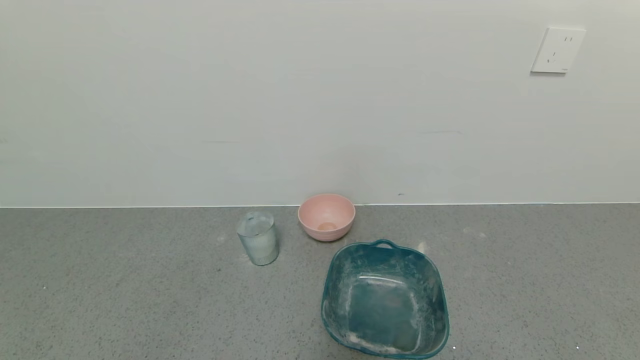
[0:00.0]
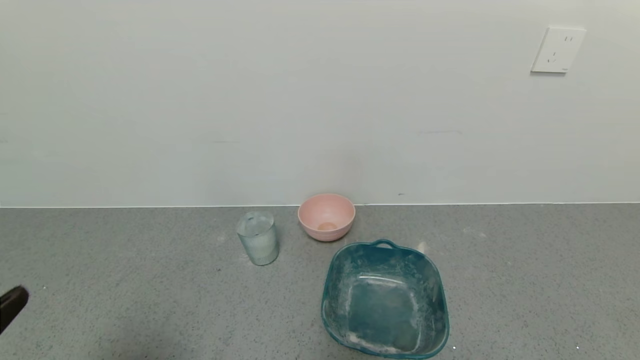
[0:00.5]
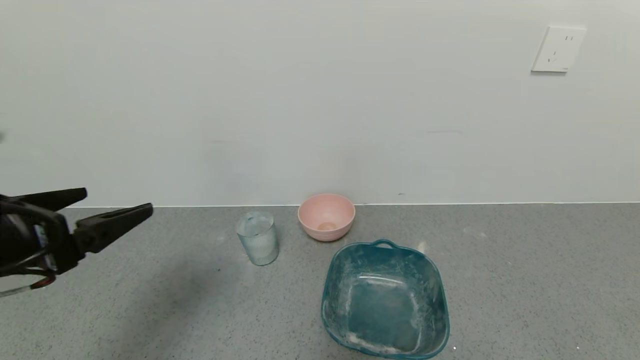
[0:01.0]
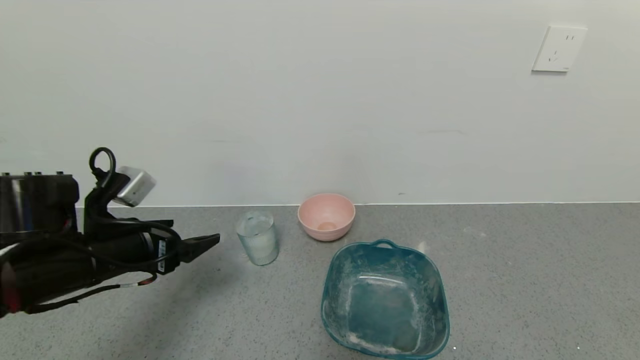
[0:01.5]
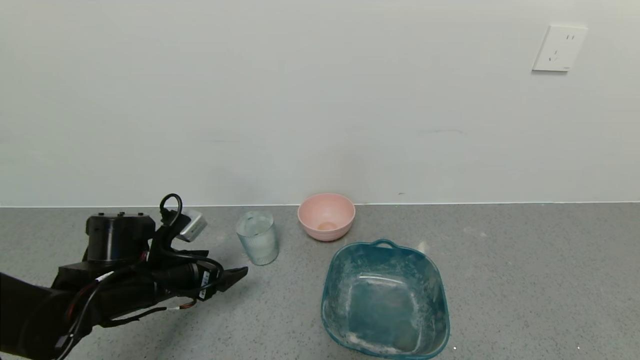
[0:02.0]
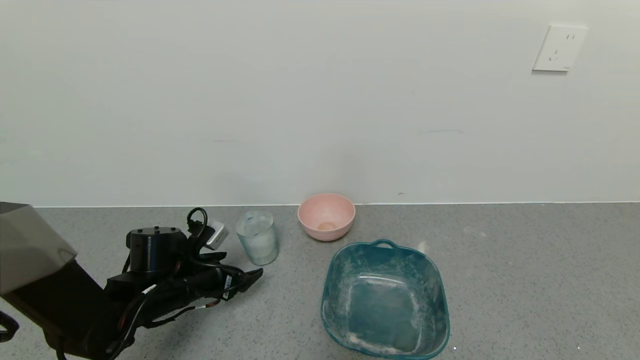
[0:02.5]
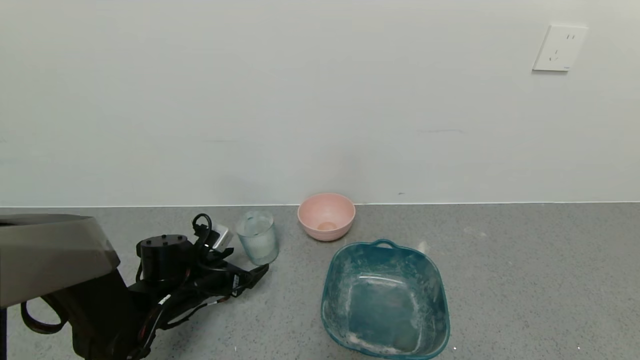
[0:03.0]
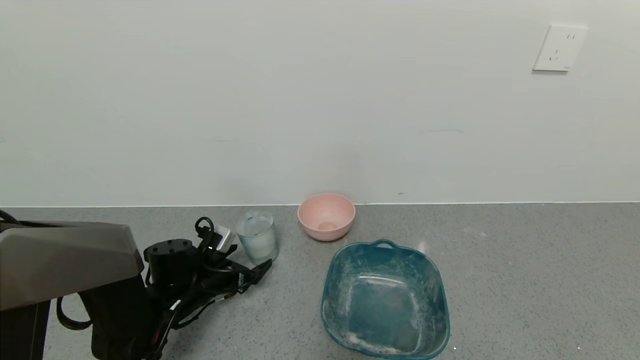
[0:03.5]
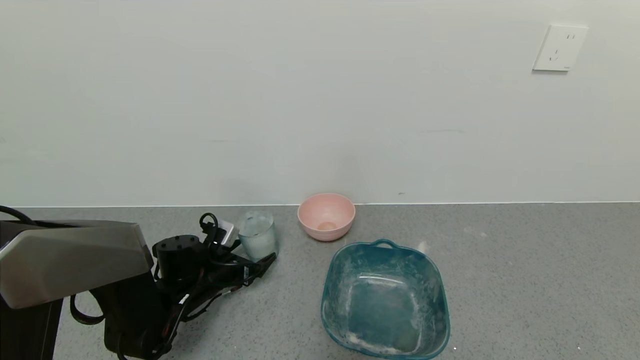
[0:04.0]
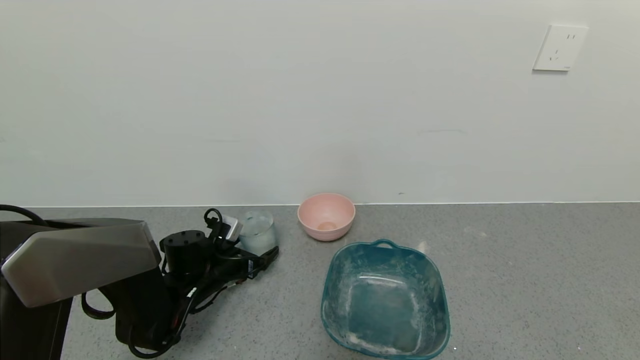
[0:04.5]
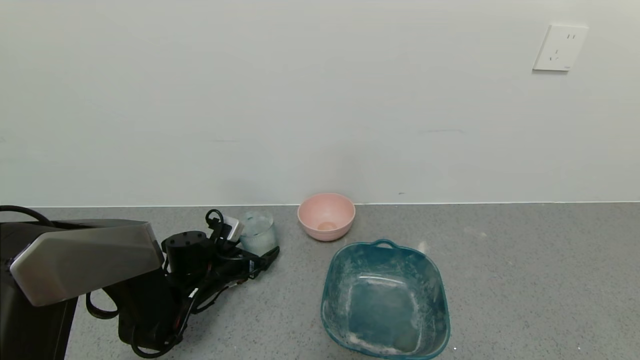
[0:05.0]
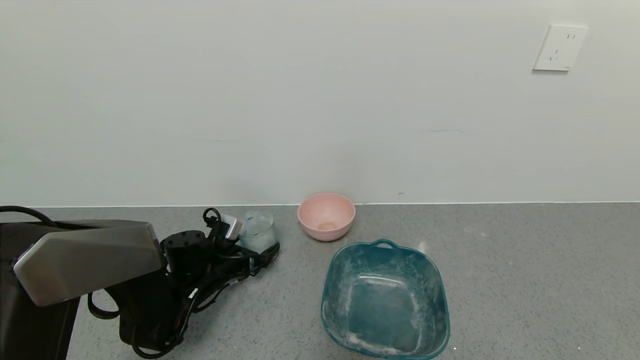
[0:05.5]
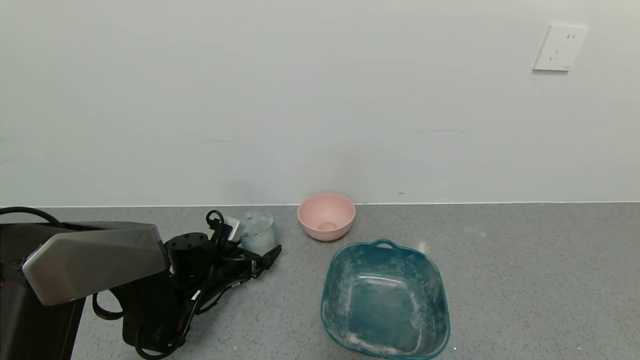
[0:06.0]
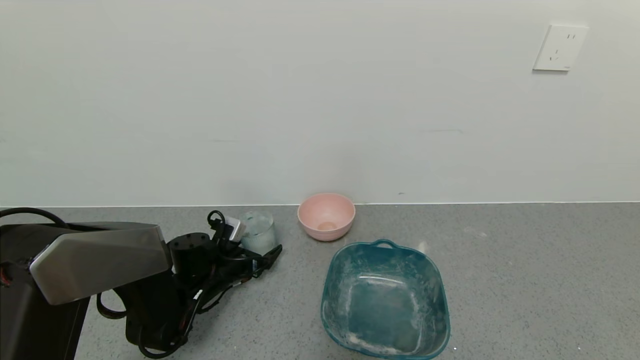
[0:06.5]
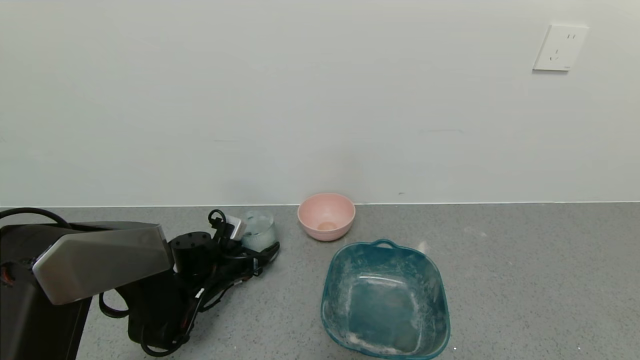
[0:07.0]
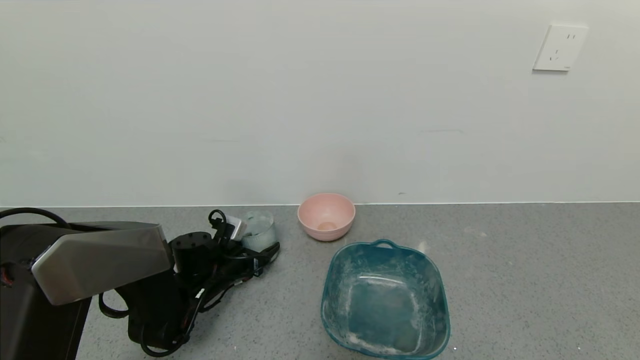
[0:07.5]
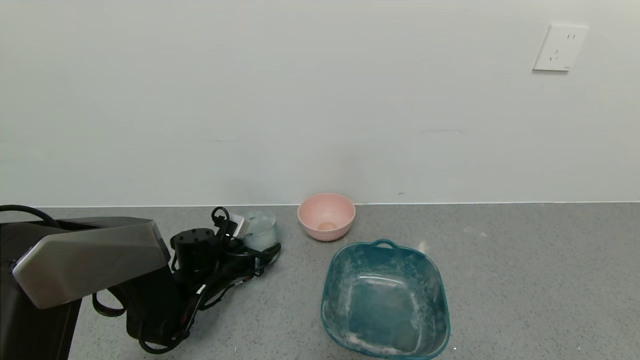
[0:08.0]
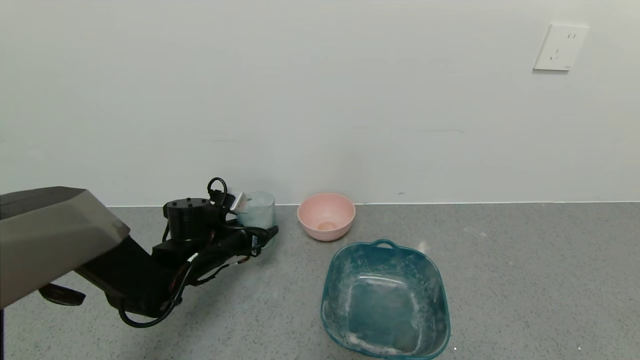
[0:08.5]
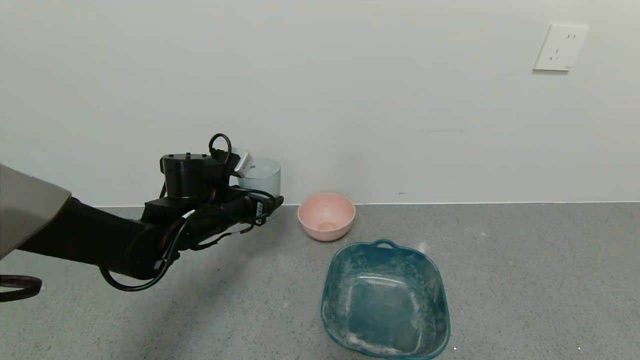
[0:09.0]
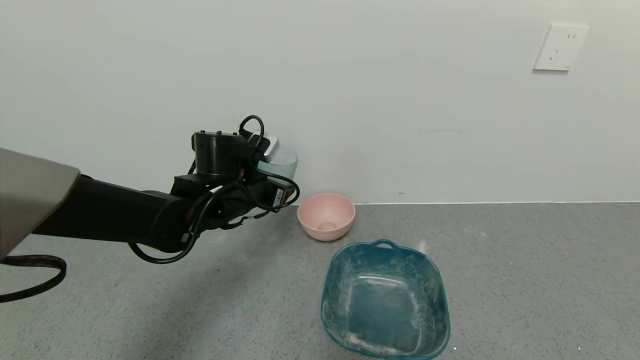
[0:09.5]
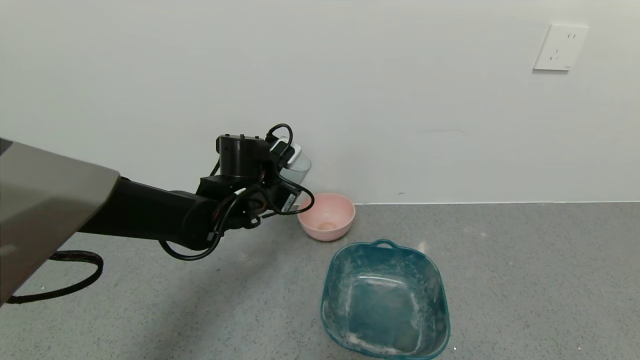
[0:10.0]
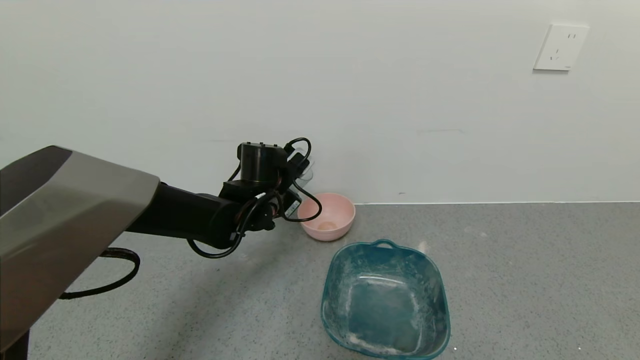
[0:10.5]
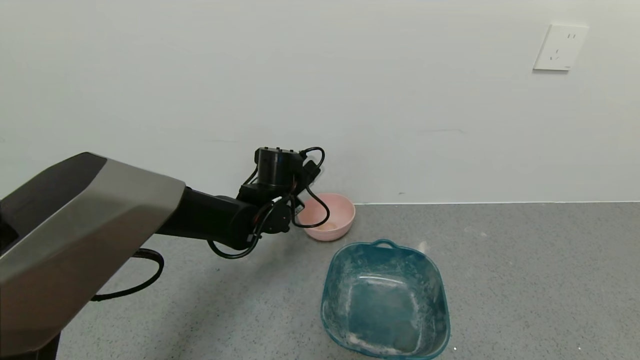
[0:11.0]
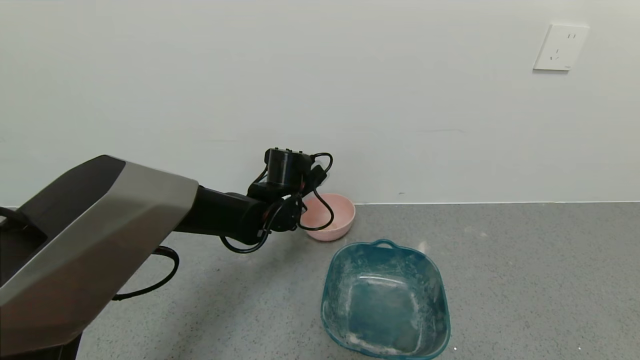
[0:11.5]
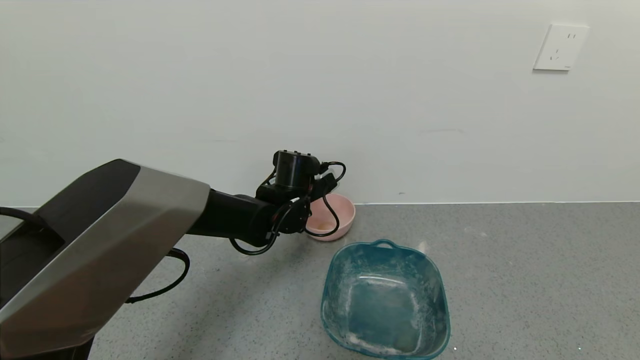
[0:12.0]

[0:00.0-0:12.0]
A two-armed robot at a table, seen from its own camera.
Task of the whole recording: use a gripper to pick up the cup and pour the powder into a bowl or tray.
Step, 0:00.0 to 0:07.0: Grasp the glass of powder with the left gripper.
0:00.0 to 0:02.0: The left gripper travels forward and downward by roughly 25 cm.
0:02.0 to 0:04.0: The left gripper is displaced downward and forward by about 10 cm.
0:04.0 to 0:06.0: The grippers move only a little.
0:06.0 to 0:08.0: The left gripper closes its fingers.
0:08.0 to 0:10.0: The left gripper moves upward and to the right, roughly 20 cm.
0:10.0 to 0:12.0: The left gripper moves to the right, roughly 5 cm.

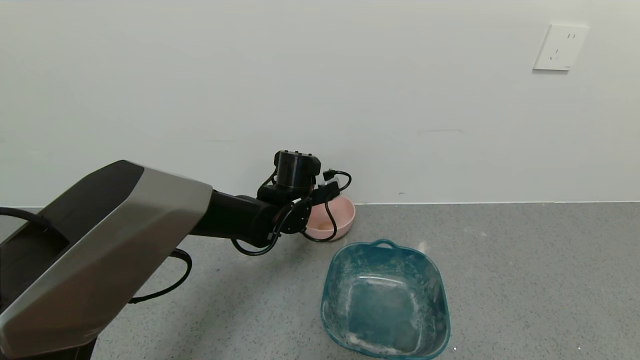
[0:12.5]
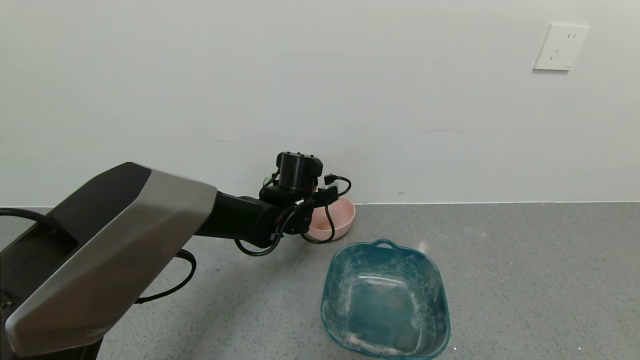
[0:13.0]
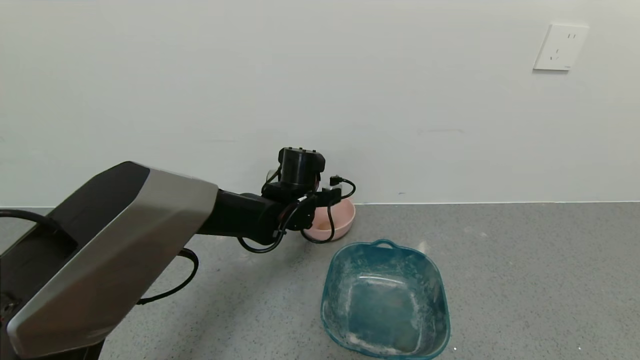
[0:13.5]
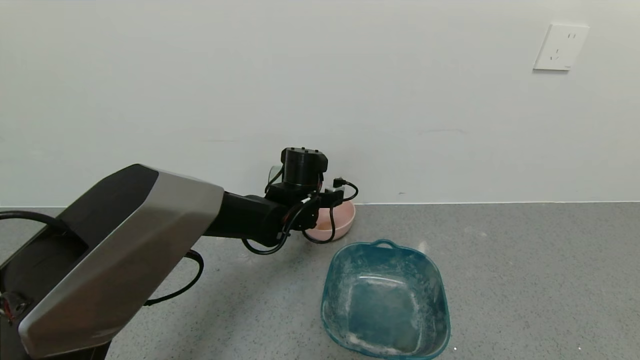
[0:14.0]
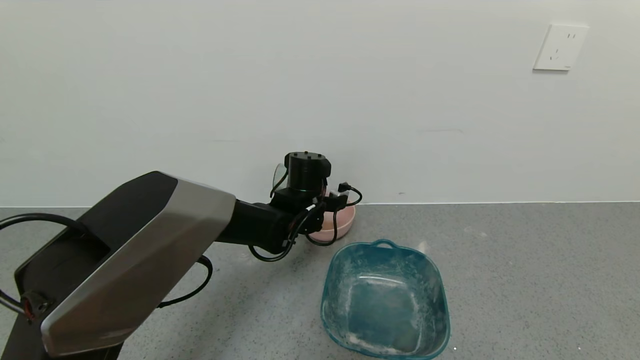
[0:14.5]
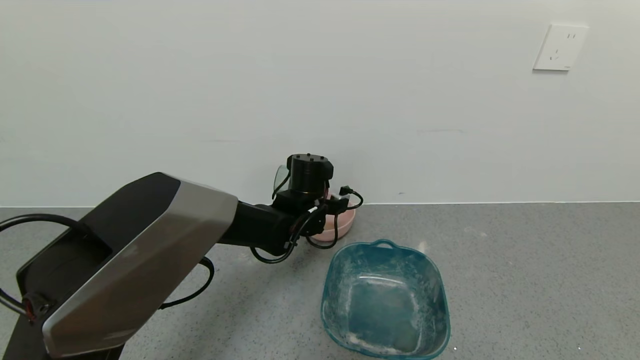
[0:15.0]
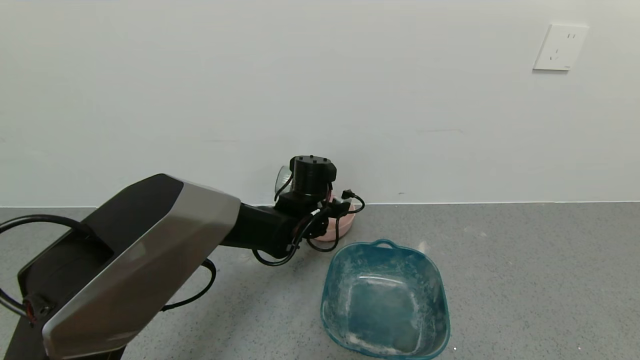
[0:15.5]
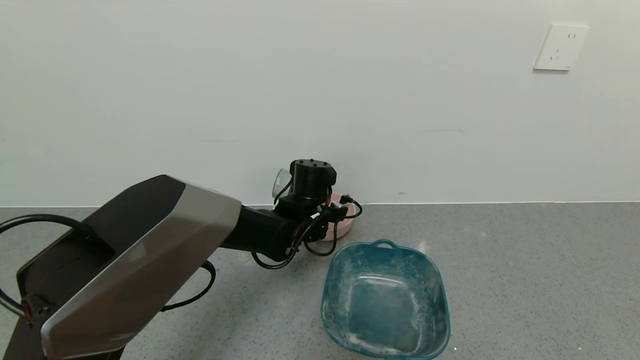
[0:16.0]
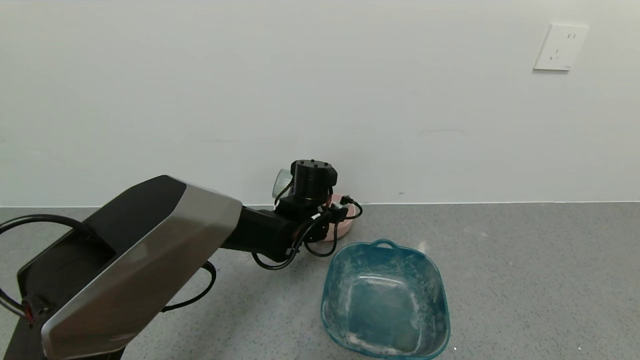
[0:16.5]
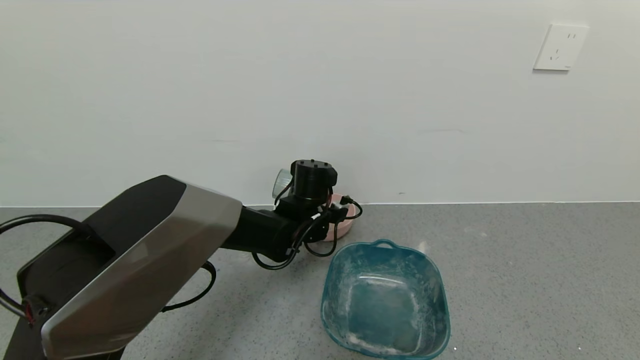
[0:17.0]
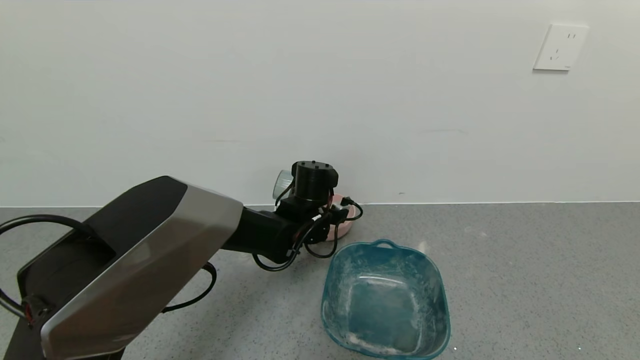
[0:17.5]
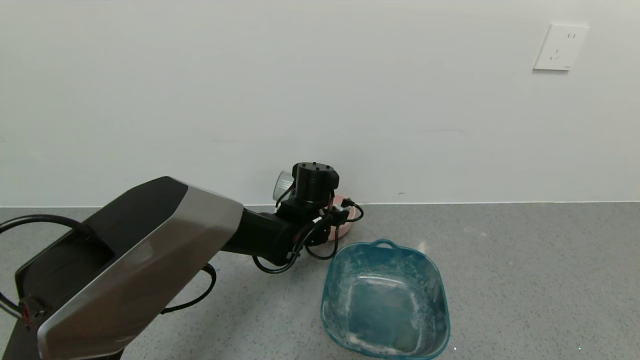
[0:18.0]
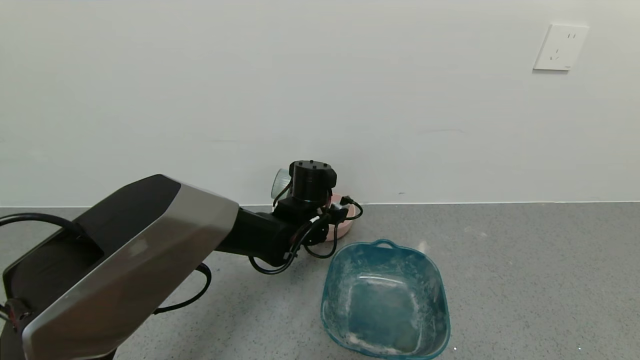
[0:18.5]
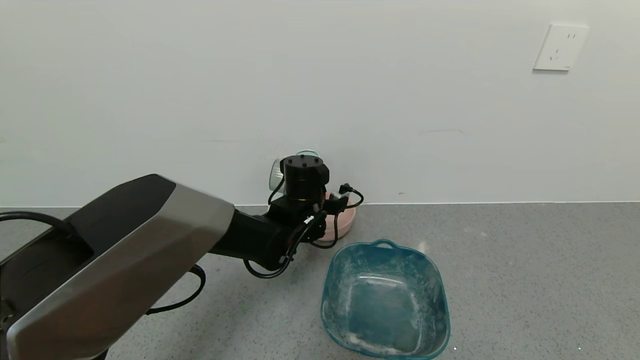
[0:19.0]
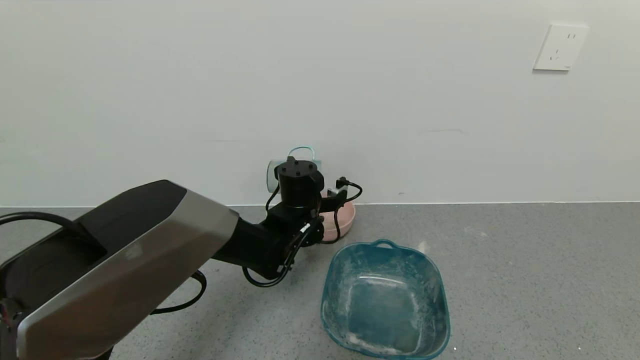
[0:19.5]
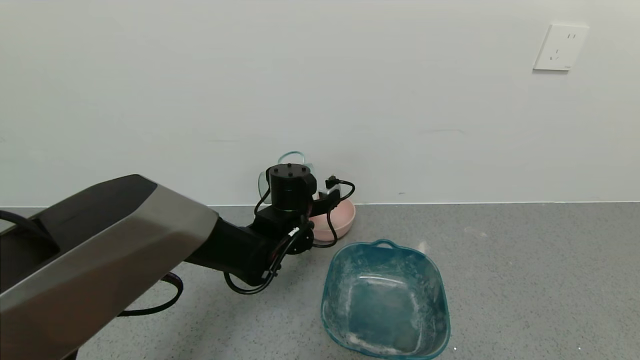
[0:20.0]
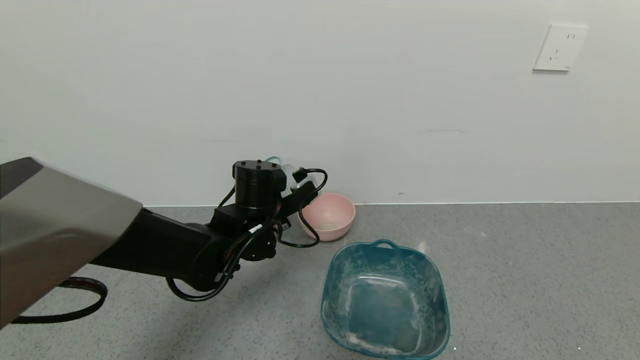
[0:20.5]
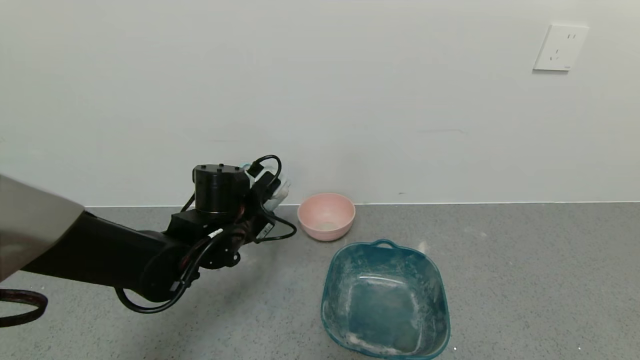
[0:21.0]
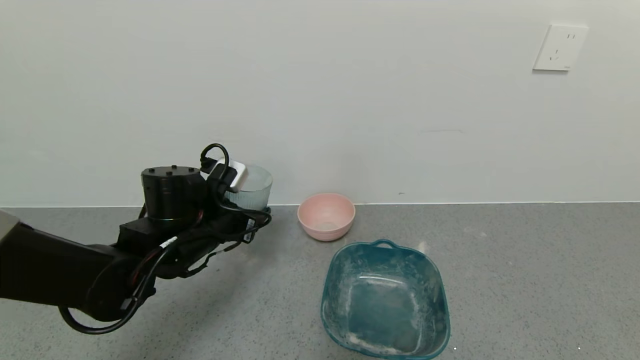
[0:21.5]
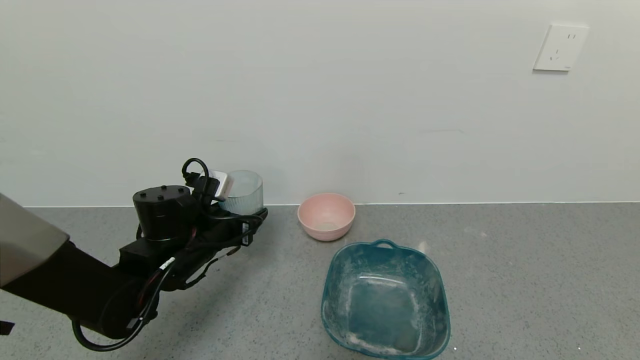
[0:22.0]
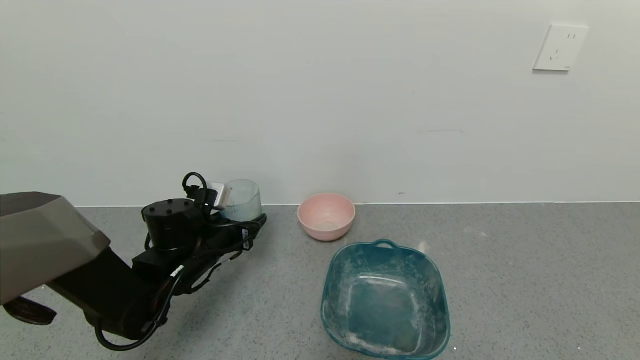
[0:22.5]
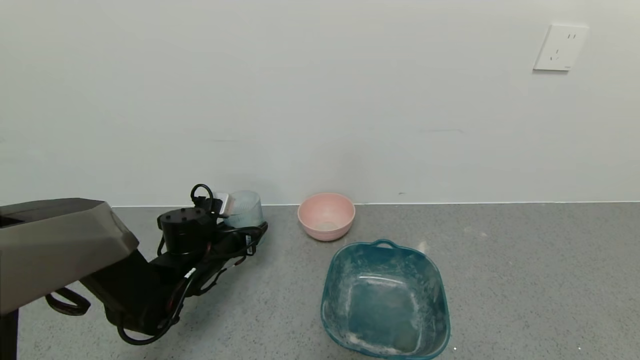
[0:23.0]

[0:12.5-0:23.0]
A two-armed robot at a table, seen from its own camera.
Task of the whole recording: use a gripper to pick up the cup and pour the powder into a bowl or tray.
Step, 0:12.5 to 0:19.5: Pour the powder into the pink bowl with the left gripper.
0:14.5 to 0:19.0: The grippers make only small movements.
0:19.0 to 0:21.0: The left gripper goes approximately 10 cm to the left and backward.
0:21.0 to 0:23.0: The left gripper travels downward and to the left by roughly 10 cm.
